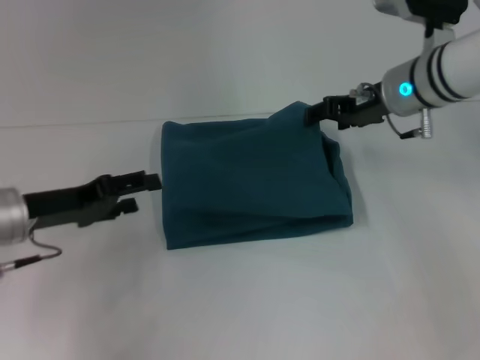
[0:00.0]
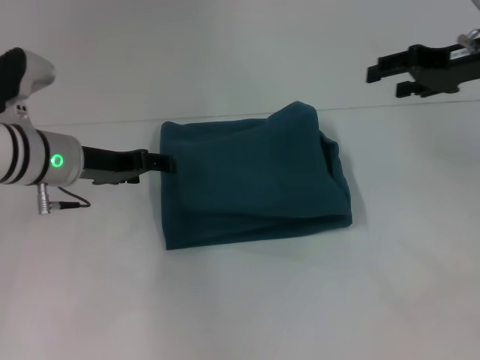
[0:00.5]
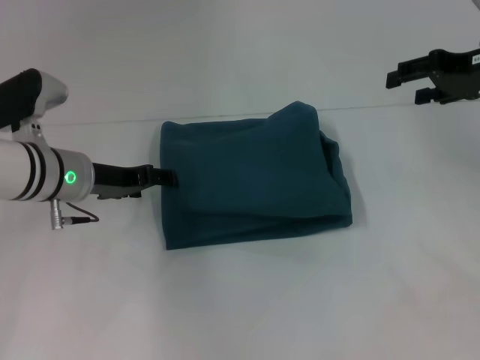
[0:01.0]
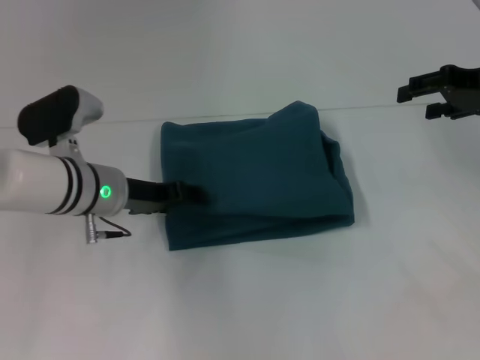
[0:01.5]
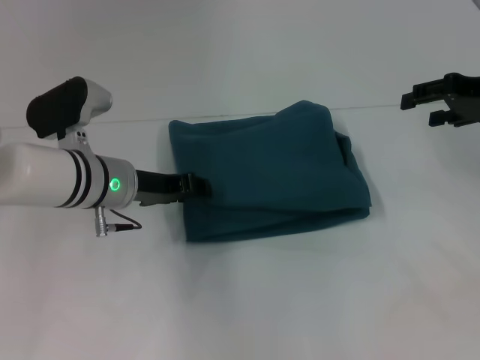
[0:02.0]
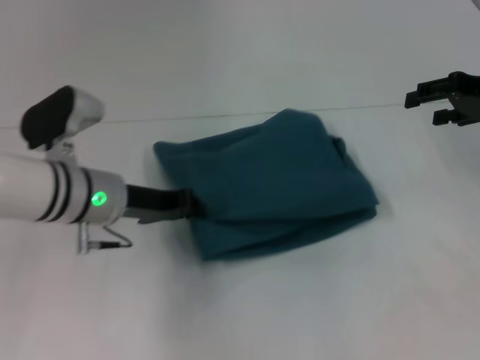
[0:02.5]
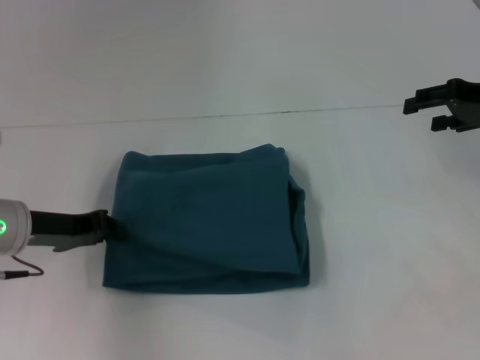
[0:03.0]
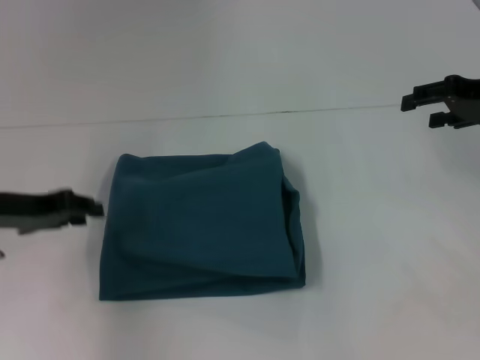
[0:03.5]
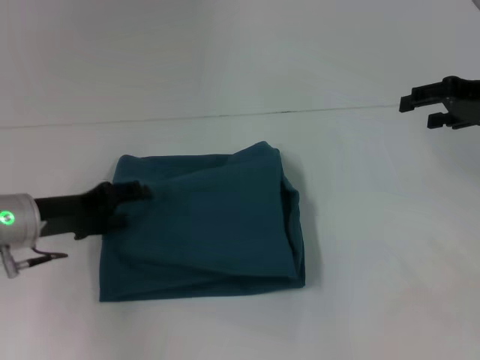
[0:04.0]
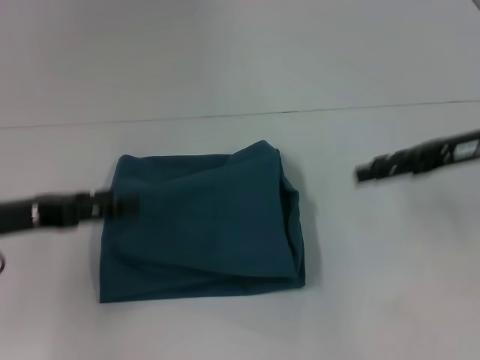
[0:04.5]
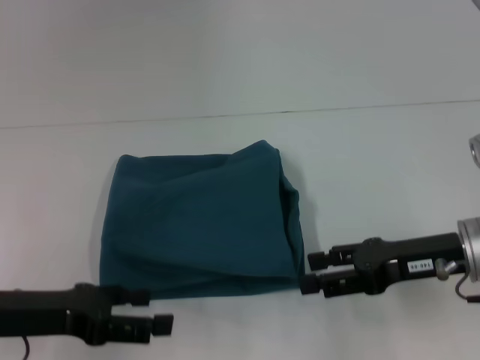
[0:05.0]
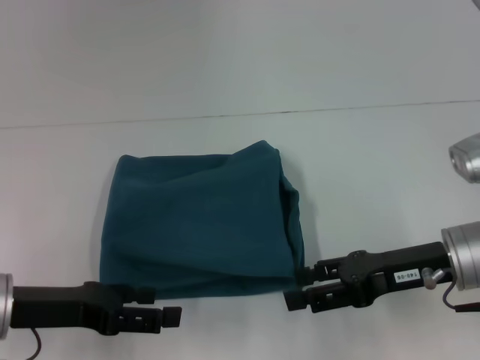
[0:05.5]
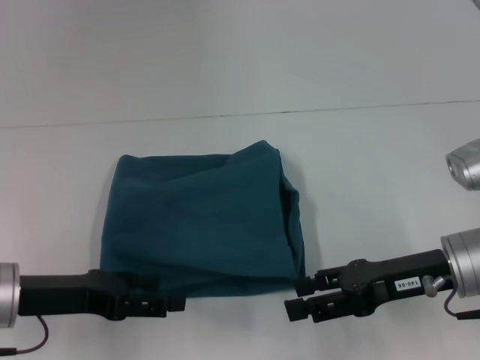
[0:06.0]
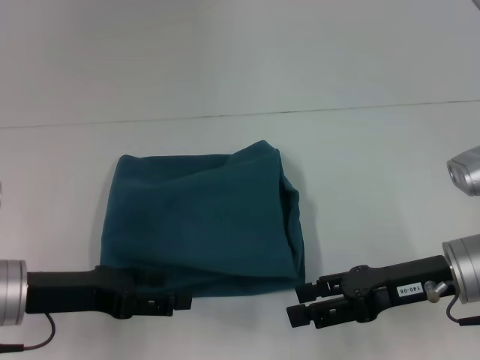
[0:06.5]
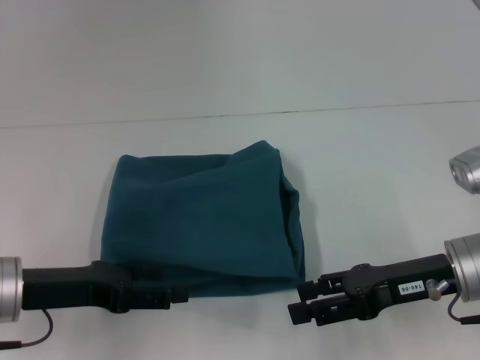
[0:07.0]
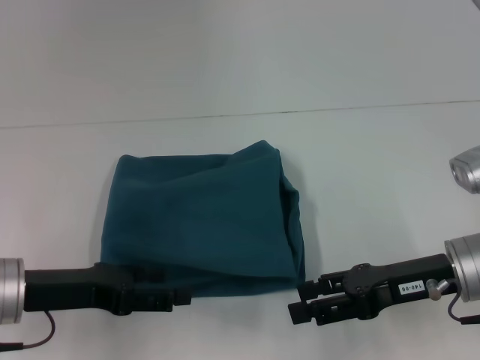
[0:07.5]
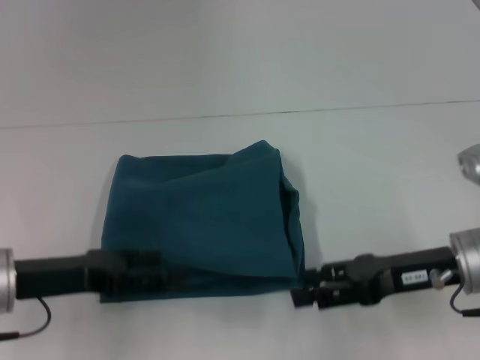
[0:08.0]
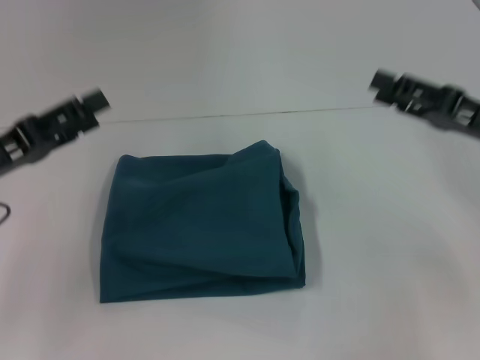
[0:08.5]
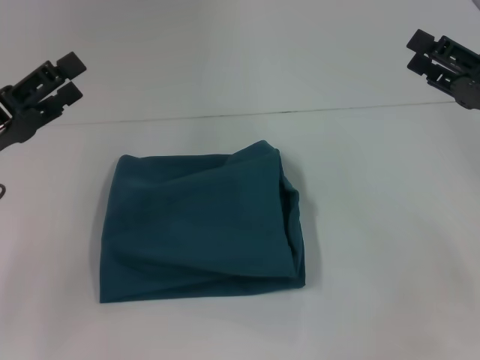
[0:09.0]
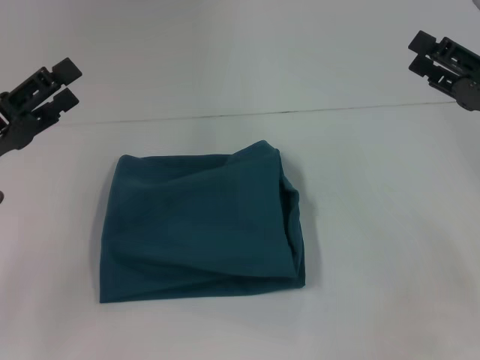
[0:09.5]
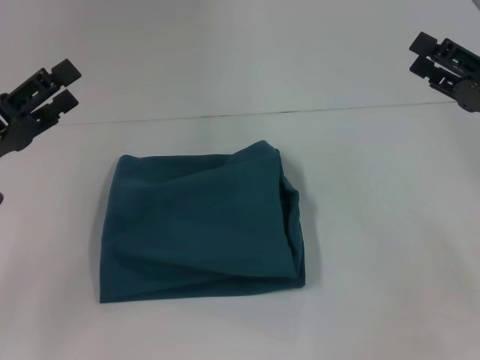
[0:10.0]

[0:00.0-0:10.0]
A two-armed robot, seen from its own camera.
0:00.0 to 0:02.0: The right gripper shifts roughly 15 cm to the right; the left gripper shifts approximately 10 cm to the right and forward.
0:02.0 to 0:04.0: The left gripper travels to the left by some 10 cm, and closes, then opens again.
0:04.0 to 0:06.0: The left gripper heads backward, covering about 5 cm; the right gripper heads backward, to the left and downward, covering roughly 20 cm.
0:06.0 to 0:08.0: There are only small adjustments of the grippers.
0:08.0 to 0:10.0: The right gripper travels to the right by about 10 cm, while the left gripper changes place by roughly 5 cm.

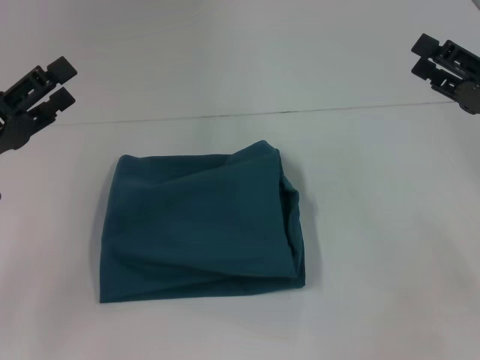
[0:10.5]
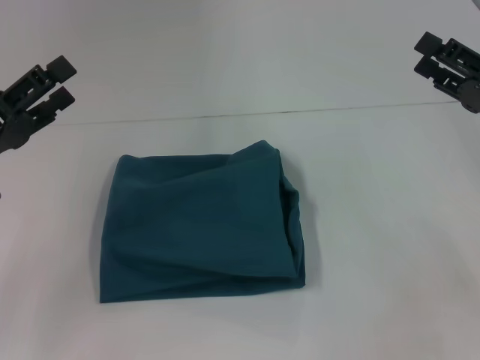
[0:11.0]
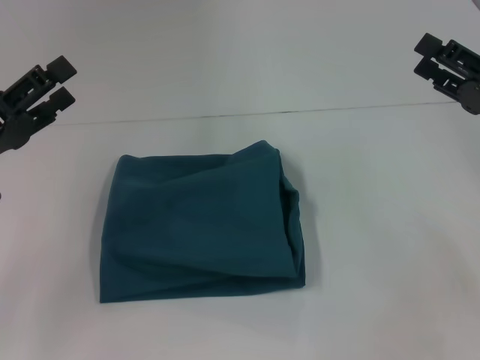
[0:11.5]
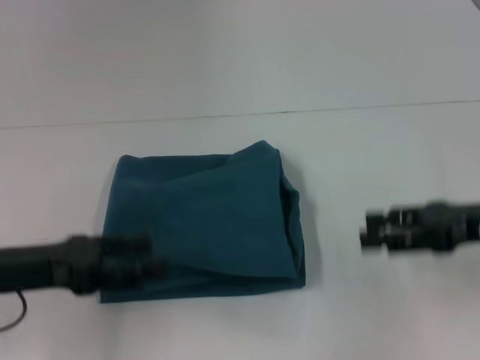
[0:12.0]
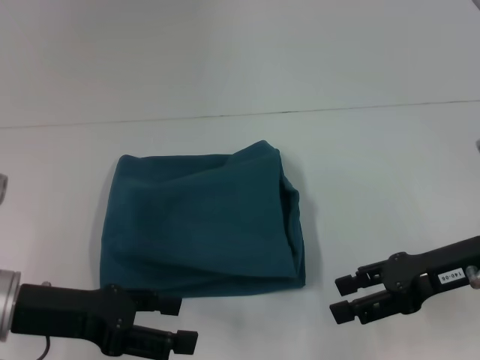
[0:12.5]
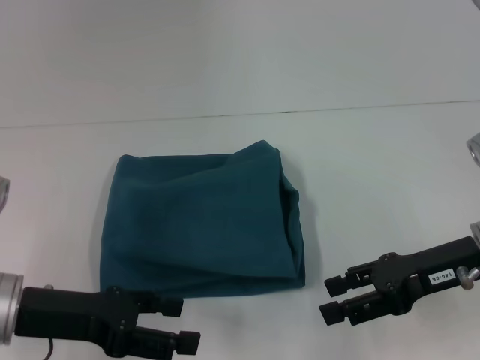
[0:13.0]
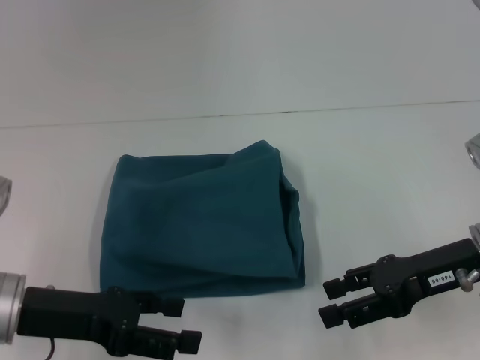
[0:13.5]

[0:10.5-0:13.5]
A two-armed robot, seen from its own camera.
0:12.0 to 0:13.5: The right gripper moves to the left, approximately 5 cm.
